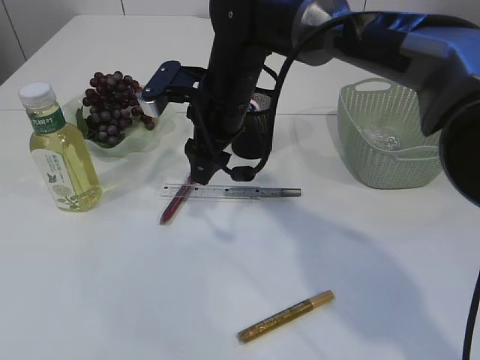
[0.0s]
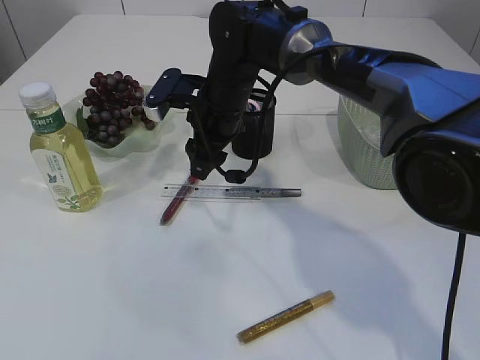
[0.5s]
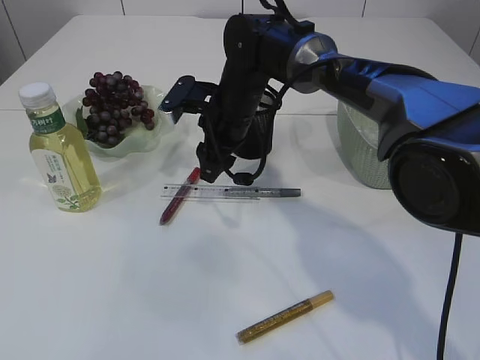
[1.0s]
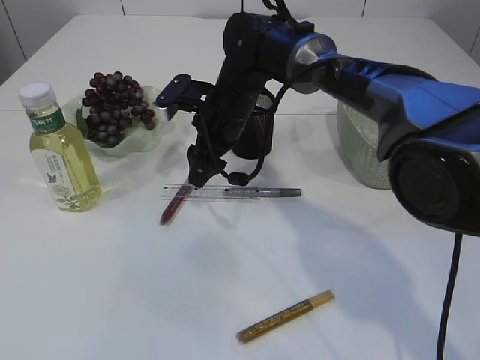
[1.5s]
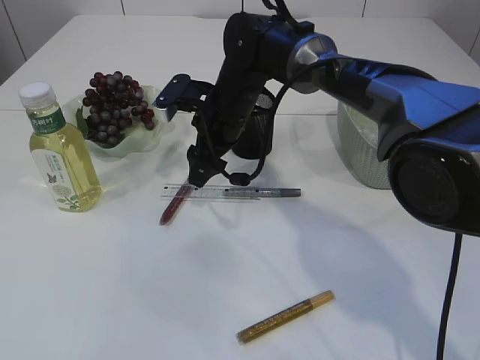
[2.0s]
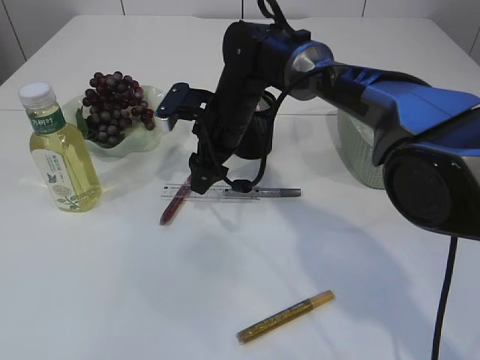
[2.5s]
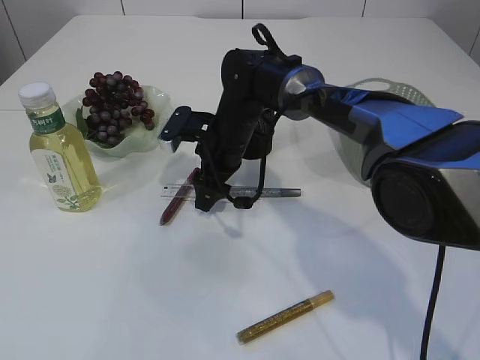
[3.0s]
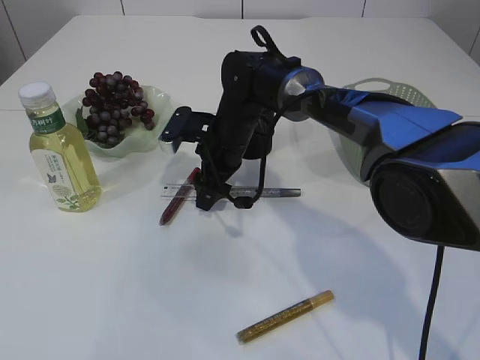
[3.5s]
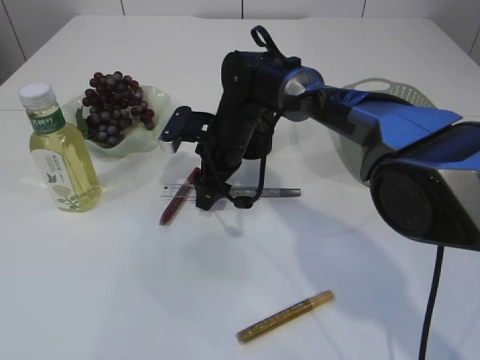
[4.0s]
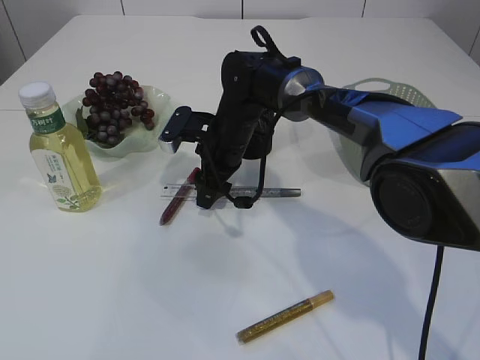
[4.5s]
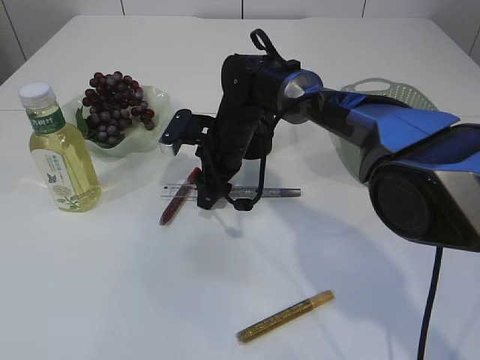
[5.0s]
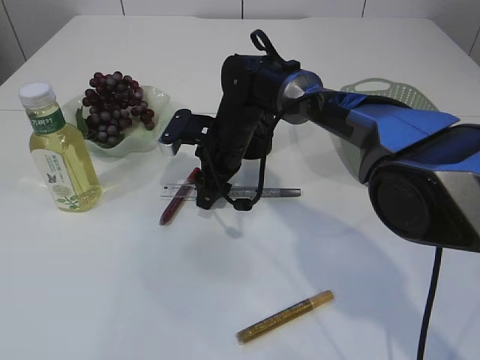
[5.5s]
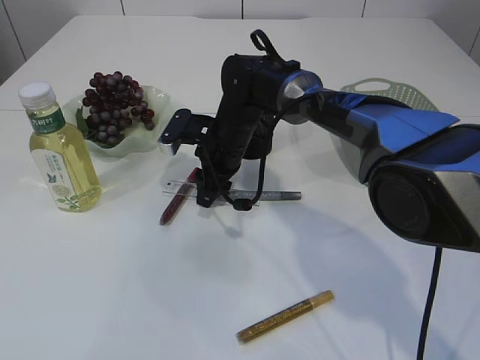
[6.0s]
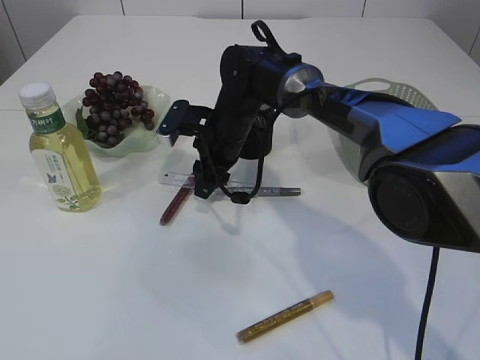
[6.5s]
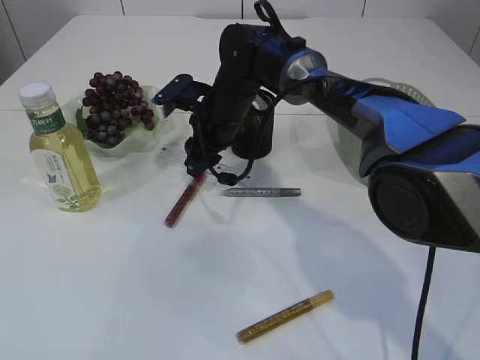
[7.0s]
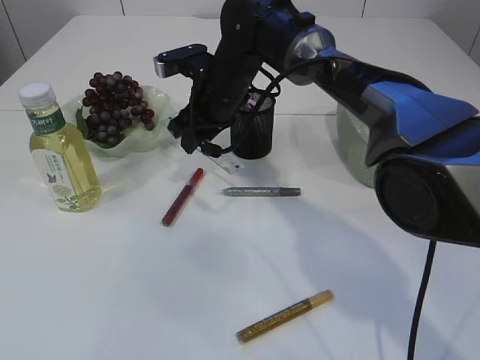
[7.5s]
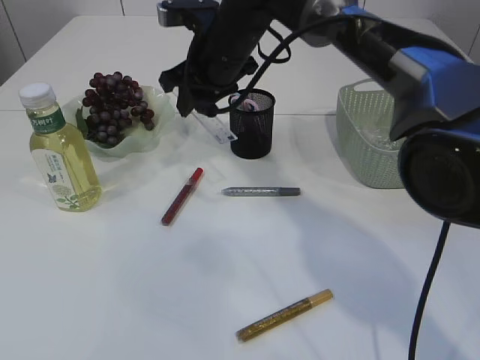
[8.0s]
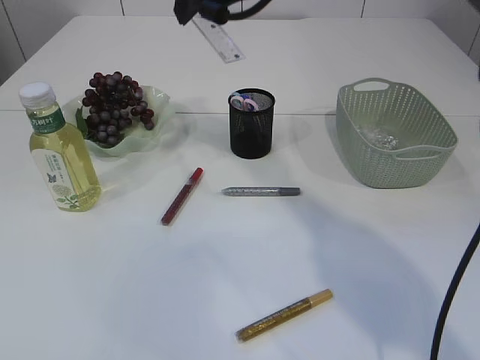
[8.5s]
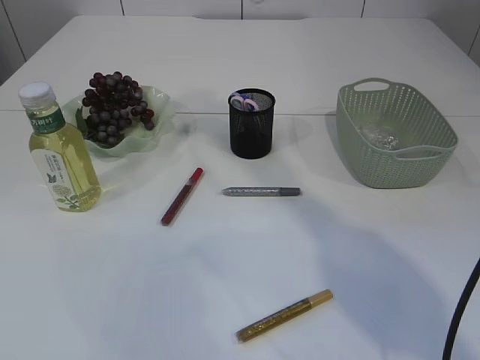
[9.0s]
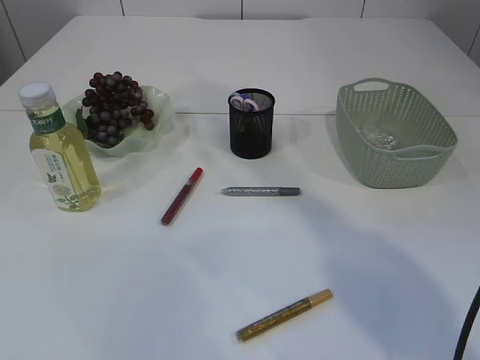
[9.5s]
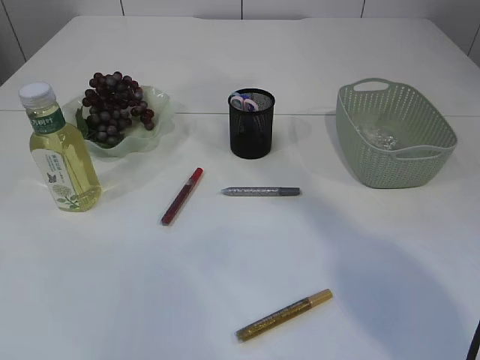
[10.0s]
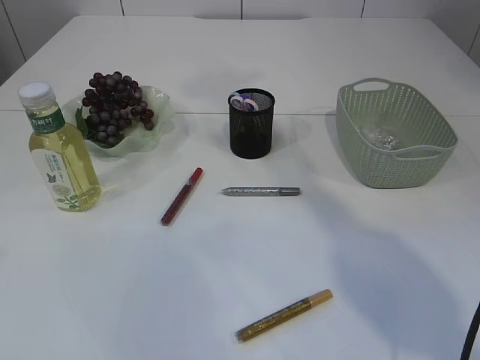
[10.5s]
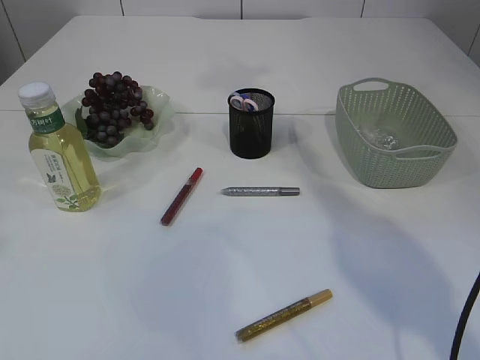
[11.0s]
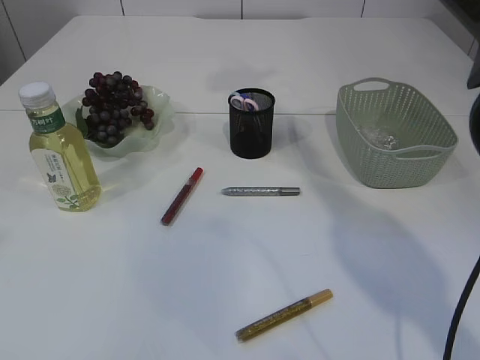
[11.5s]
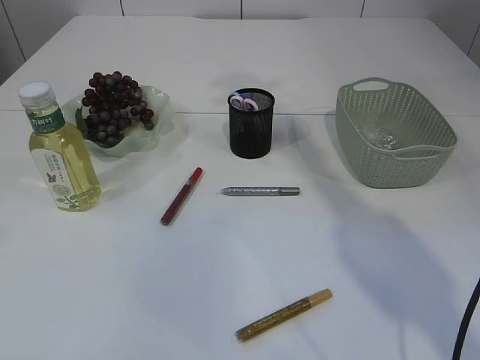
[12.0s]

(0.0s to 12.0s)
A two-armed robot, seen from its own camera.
Step, 0.0s - 7.0s: pick up the ruler.
0.0s - 2.0s: The right gripper ends up approximately 5 cm from where it was.
2.0s - 4.0s: There are only small adjustments of the grippers.
4.0s - 6.0s: The right gripper closes up.
6.0s - 8.0s: The right gripper travels upward by roughly 15 cm.
8.0s - 10.0s: The right gripper moves upward, roughly 25 cm.
10.0s - 12.0s: The right gripper moves downward and forward, approximately 15 cm.

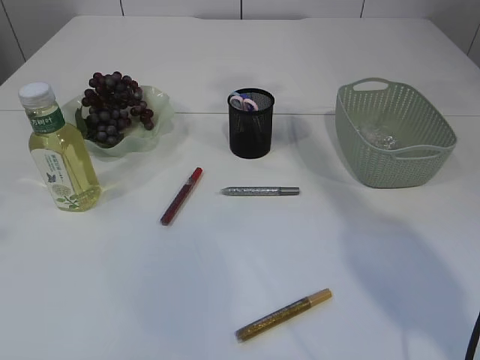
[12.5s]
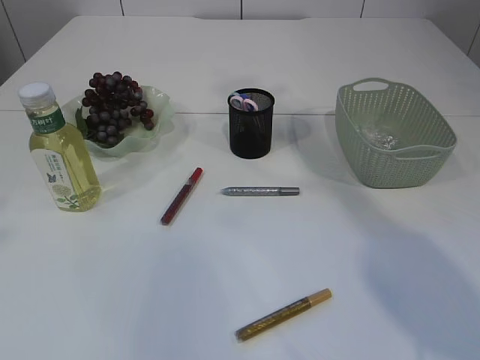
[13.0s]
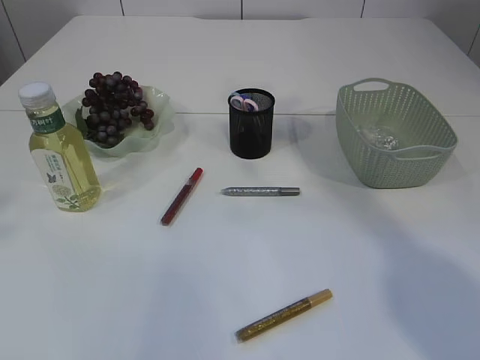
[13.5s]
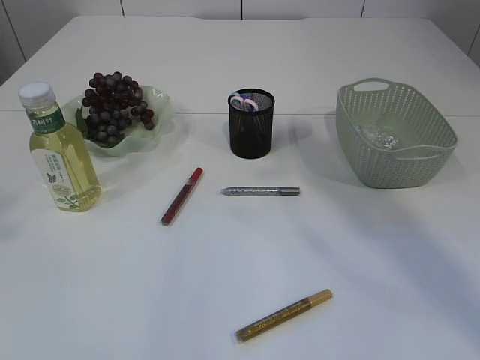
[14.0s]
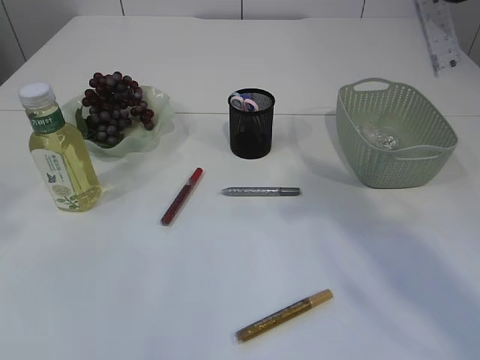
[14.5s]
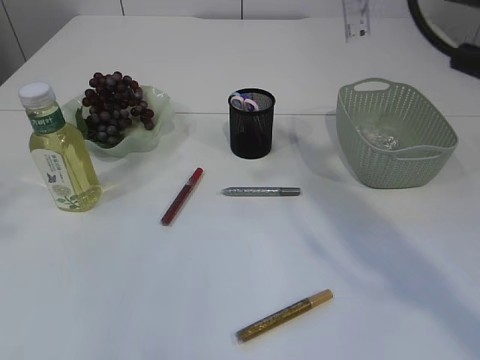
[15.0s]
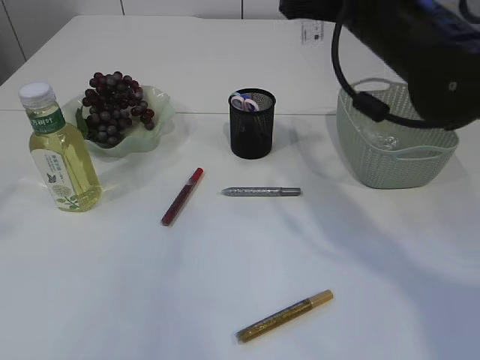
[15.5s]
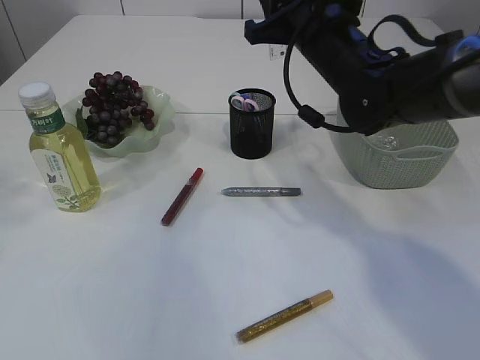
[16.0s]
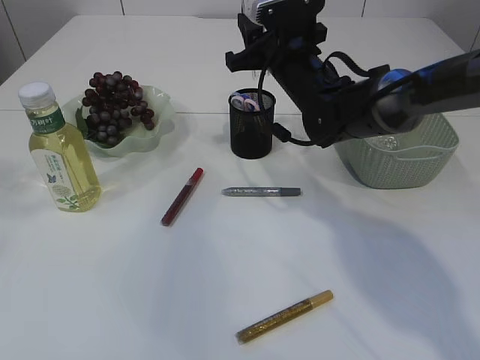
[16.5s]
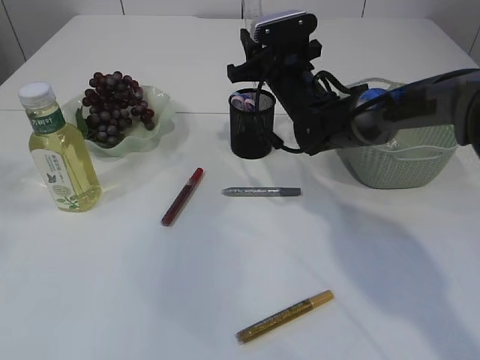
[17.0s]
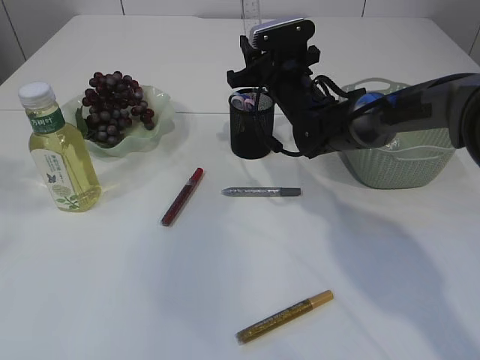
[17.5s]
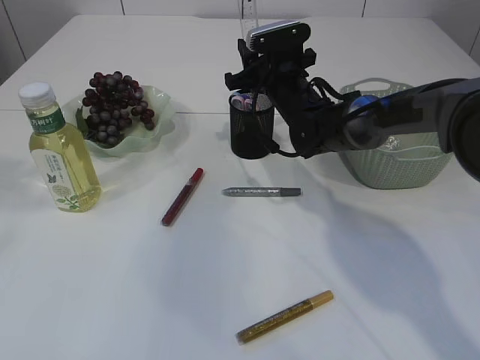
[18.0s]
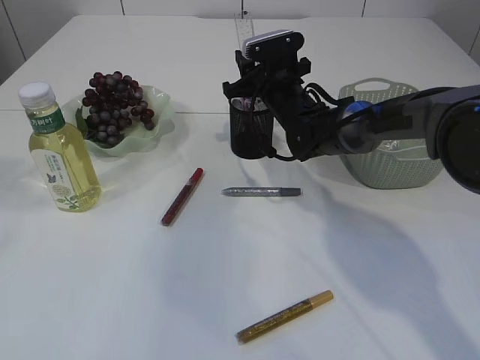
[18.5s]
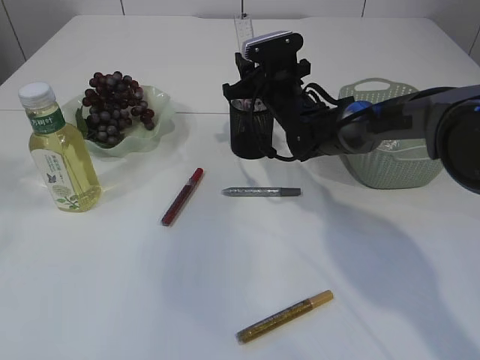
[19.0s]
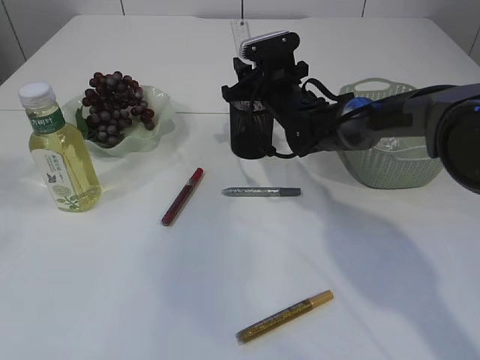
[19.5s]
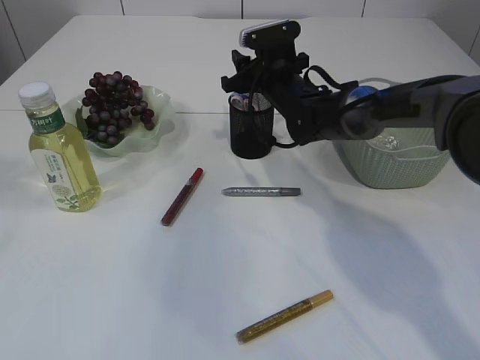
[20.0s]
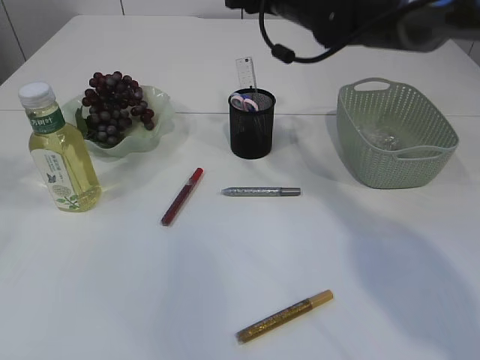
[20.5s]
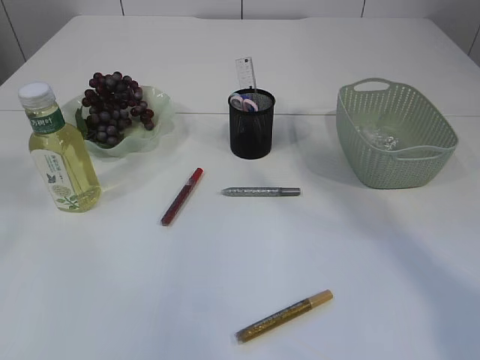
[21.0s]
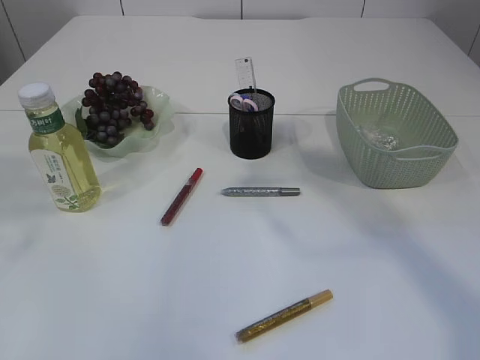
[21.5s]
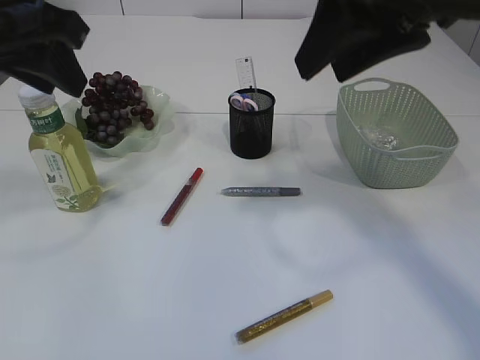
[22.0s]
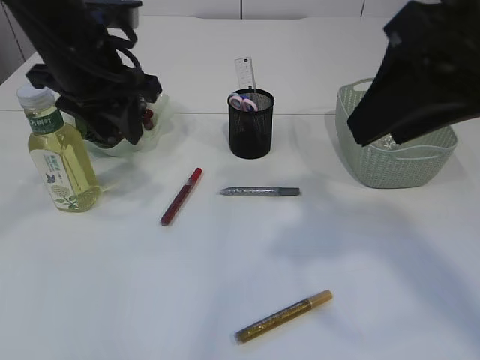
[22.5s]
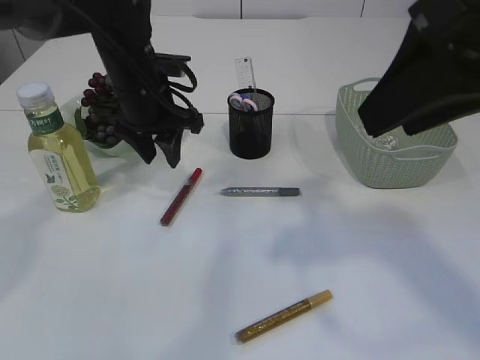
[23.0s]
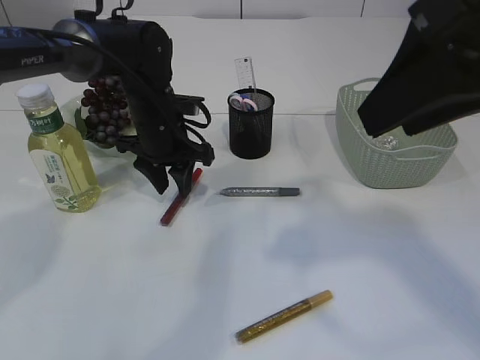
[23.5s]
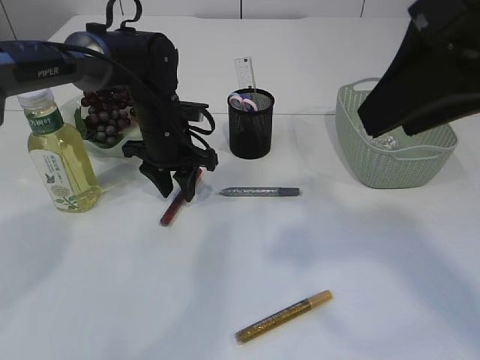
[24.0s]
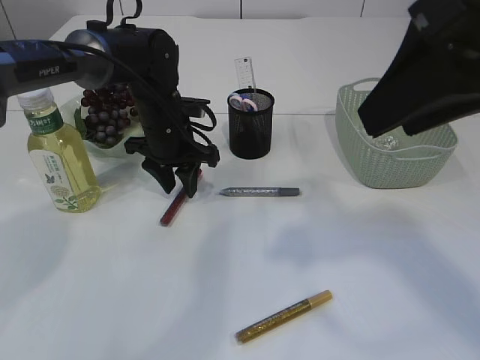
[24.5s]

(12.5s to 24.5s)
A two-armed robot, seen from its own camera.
Step, 12.5s - 20.0s: Place the ruler into the pen holder.
12.5s - 14.5s: The right gripper is displaced backward by roughly 25 cm.
14.5s - 16.5s: The right gripper heads forward and downward, covering roughly 30 cm.
16.5s - 18.5s: The right gripper is displaced downward by some 5 cm.
18.5s - 20.5s: The right gripper moves upward, approximately 15 cm.
20.5s - 22.5s: The left gripper shifts some 20 cm downward, forward and to the right, while the right gripper is displaced backward by some 25 cm.
22.5s - 24.5s: The left gripper is displaced downward and forward by roughly 20 cm.

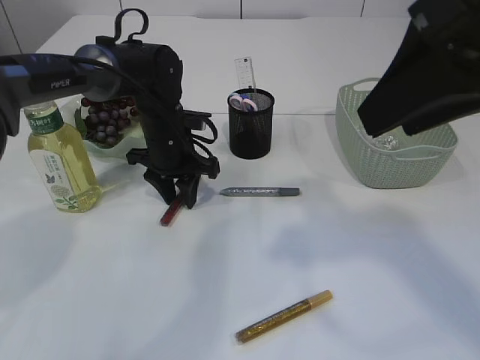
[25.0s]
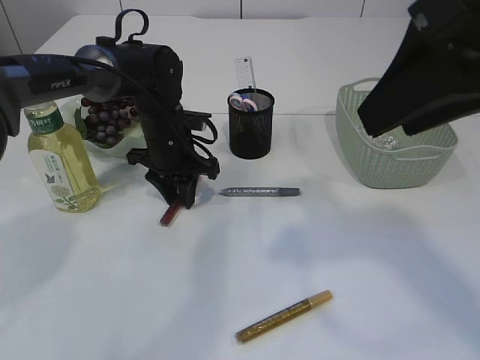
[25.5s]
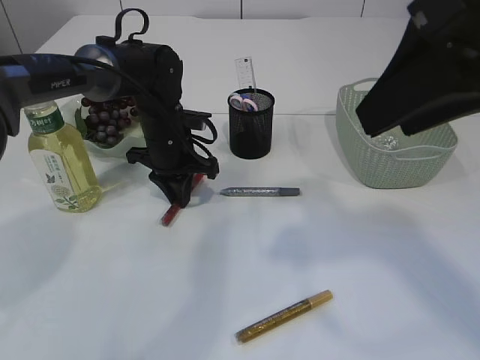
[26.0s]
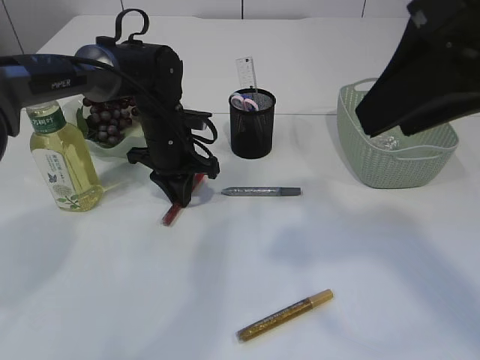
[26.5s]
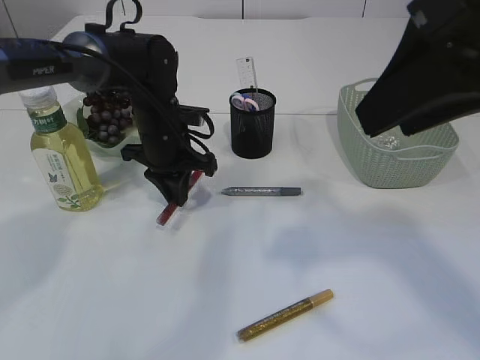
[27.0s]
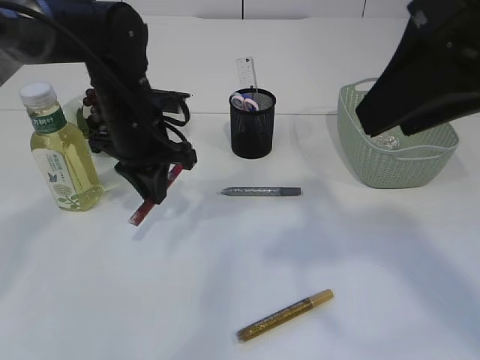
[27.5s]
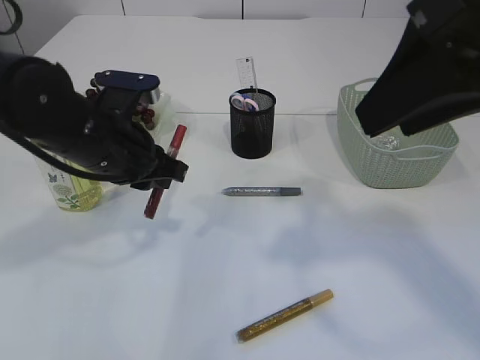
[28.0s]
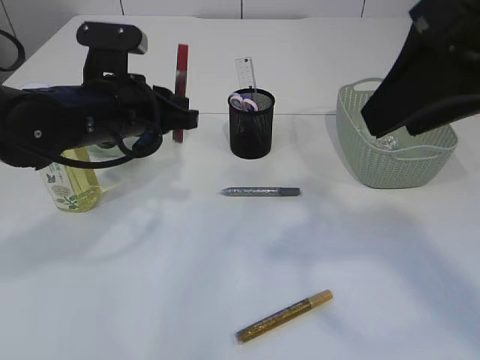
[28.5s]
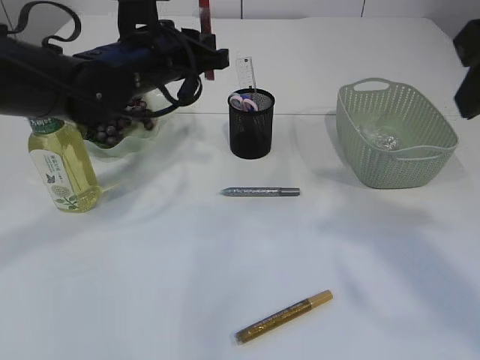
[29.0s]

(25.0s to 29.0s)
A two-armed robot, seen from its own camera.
Step, 25.0s - 27.5s: pick up the red glue.
25.0s - 27.0s: The left gripper closes up.
27.0s - 29.0s: The left gripper is displaced upward by roughly 10 cm, and reaches approximately 10 cm backward, then returns.
